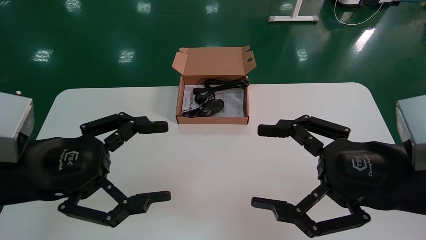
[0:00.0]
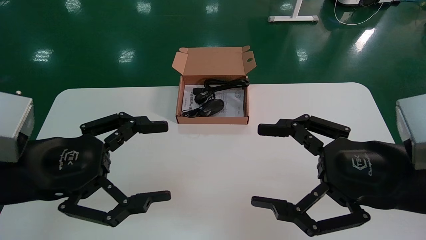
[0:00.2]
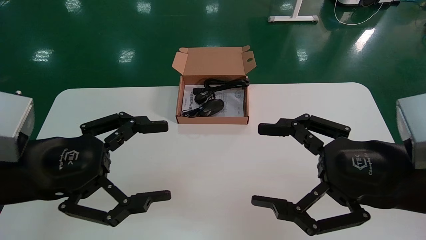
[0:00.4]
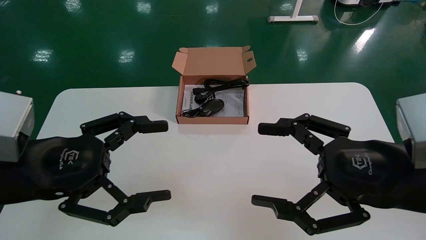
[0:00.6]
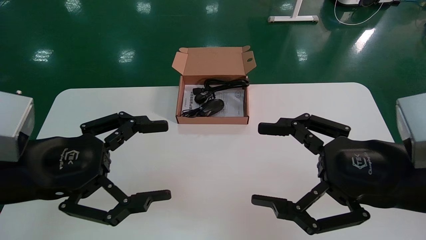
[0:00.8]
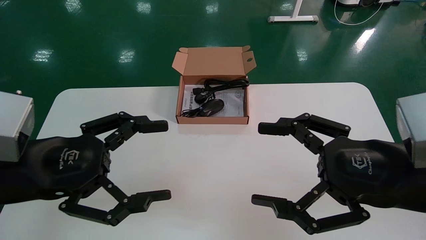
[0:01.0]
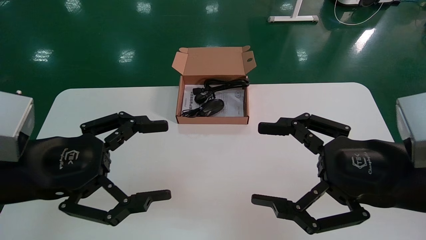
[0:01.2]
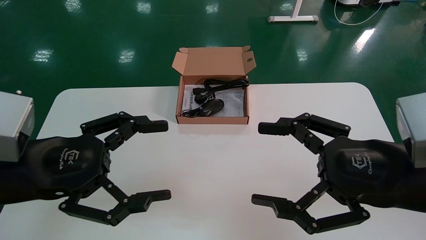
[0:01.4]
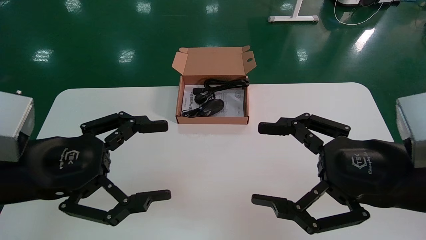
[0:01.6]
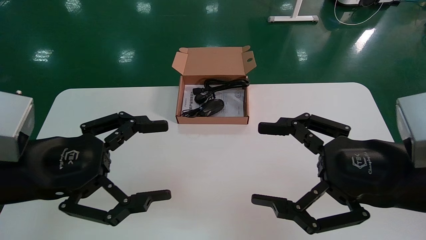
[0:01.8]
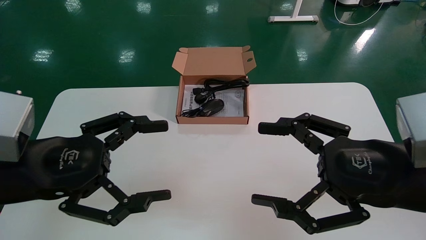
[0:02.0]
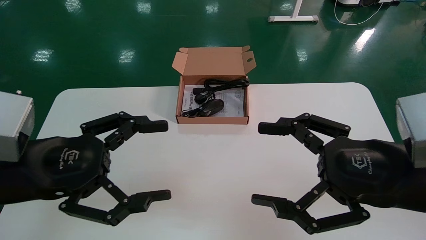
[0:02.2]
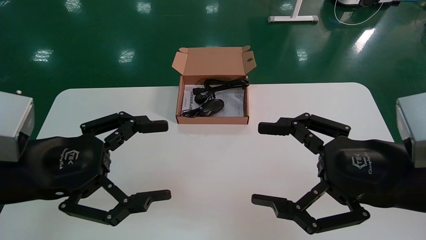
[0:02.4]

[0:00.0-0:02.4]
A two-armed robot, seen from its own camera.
0:00.0 to 0:02.4: Both grippers stay about where they are.
